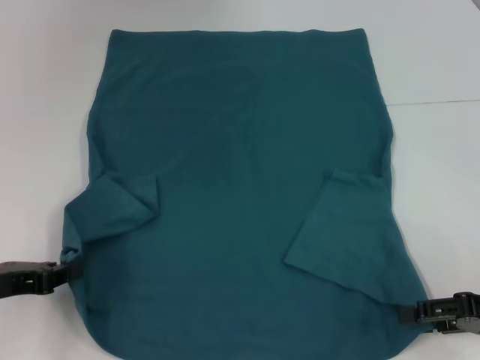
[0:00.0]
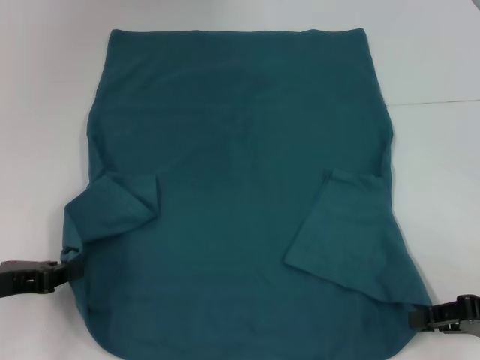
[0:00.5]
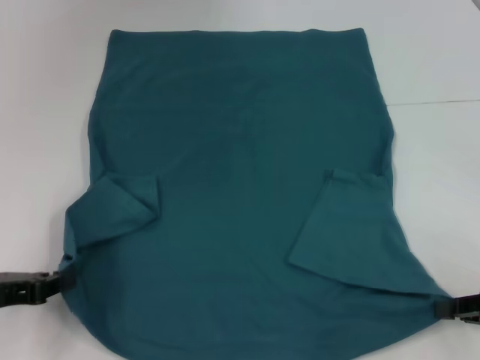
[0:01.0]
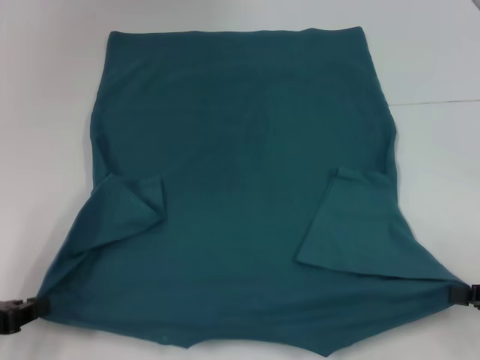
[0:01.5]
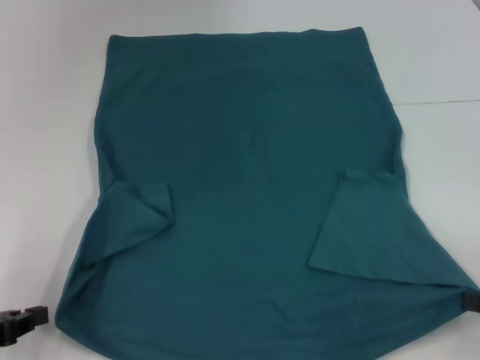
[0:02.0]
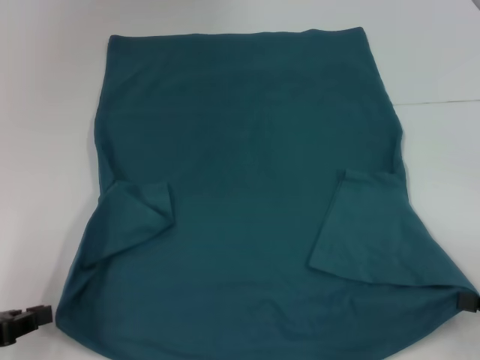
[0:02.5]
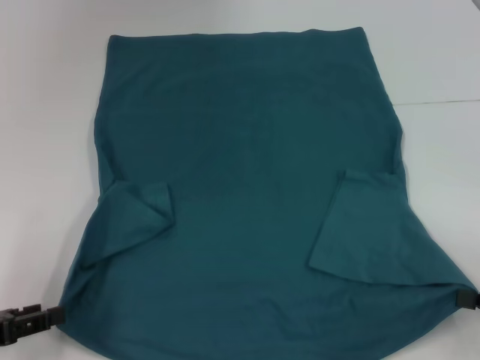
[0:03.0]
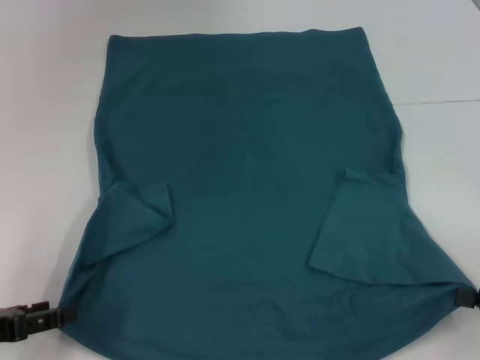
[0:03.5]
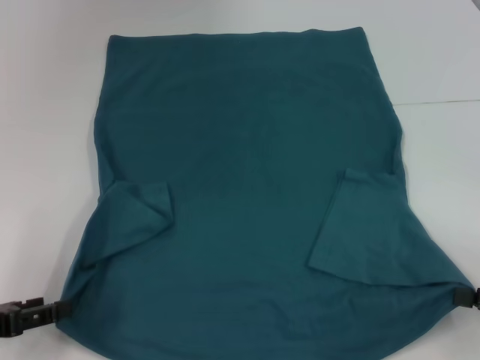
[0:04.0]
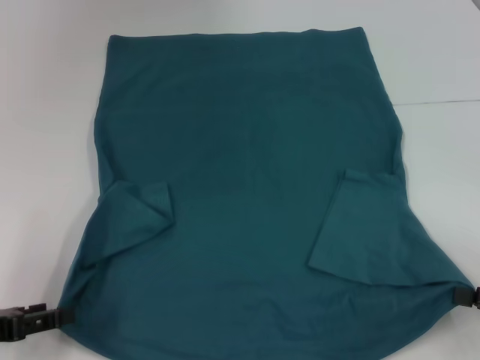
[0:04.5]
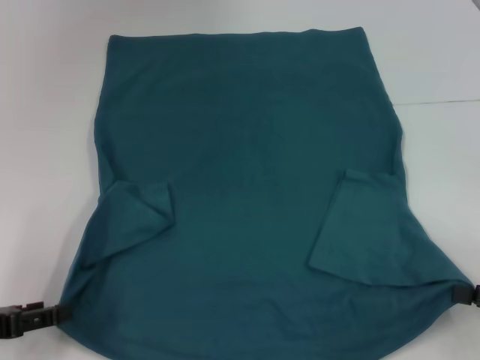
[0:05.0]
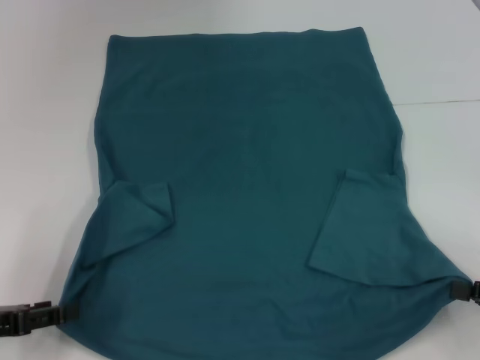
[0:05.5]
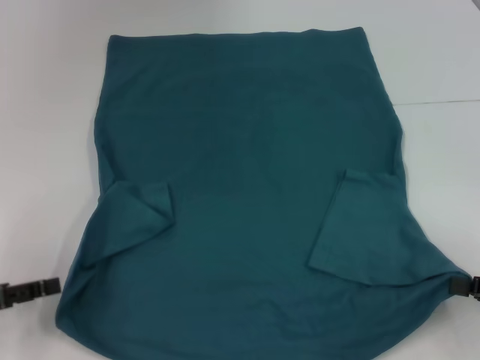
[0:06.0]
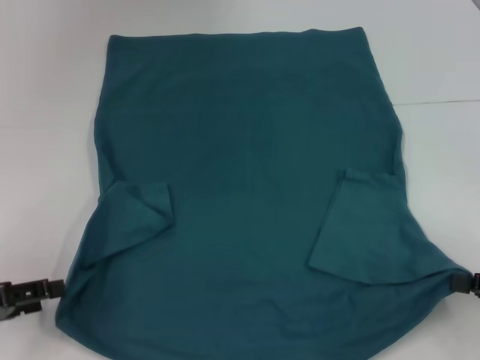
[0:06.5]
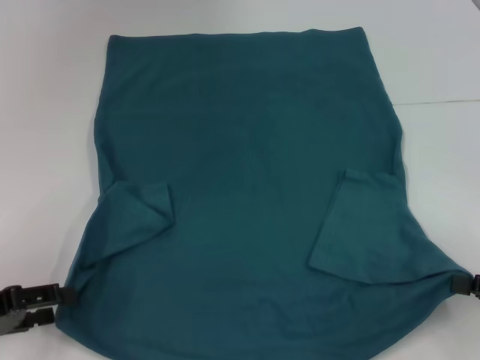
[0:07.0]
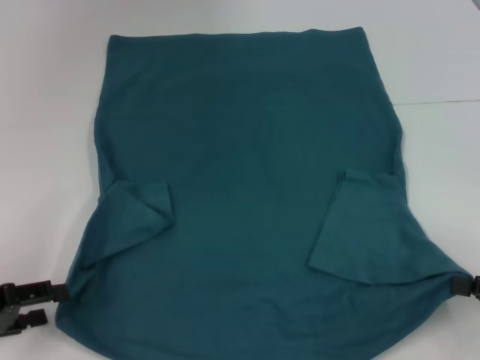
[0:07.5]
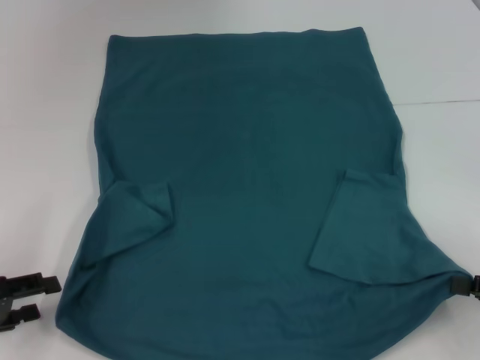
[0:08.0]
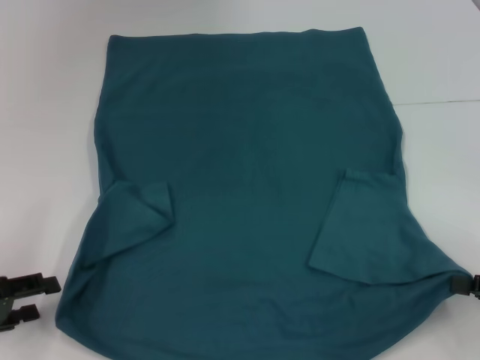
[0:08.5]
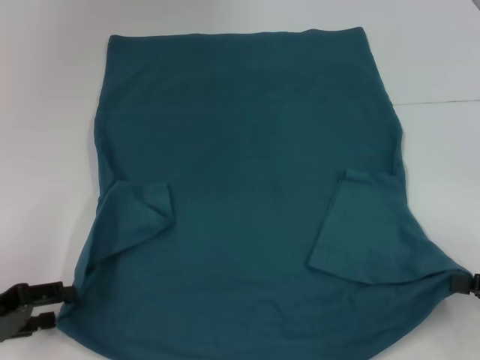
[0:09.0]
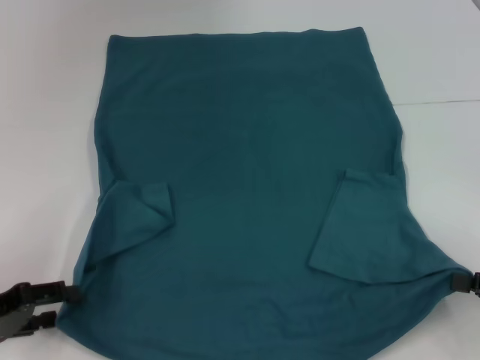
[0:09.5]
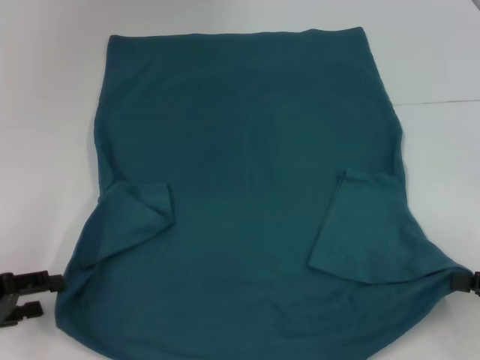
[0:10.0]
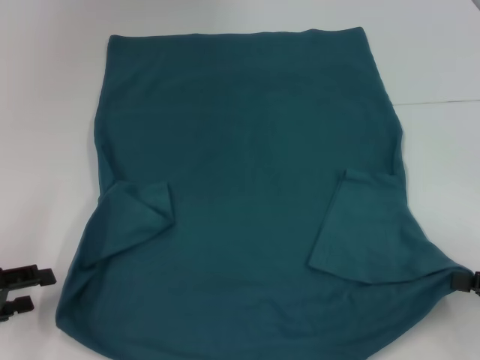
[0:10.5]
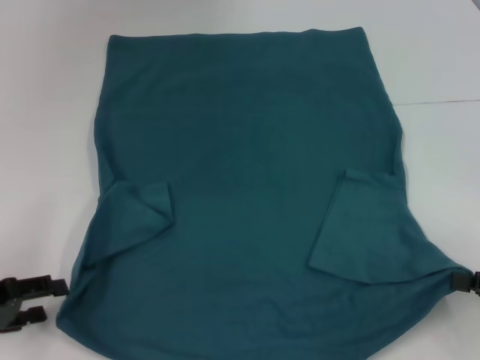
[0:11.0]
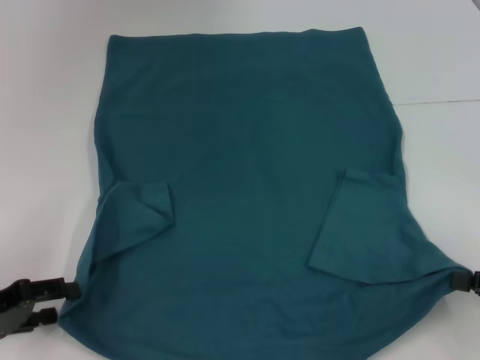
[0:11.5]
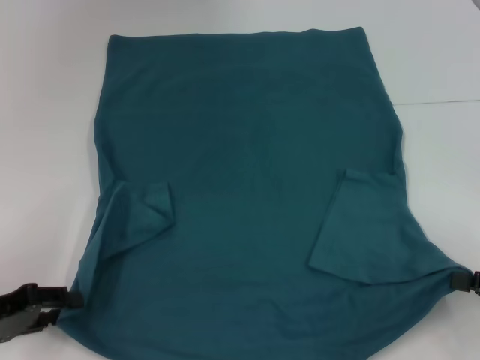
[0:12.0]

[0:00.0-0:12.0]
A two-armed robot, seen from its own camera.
0:00.0 to 0:02.0: The right gripper ends up some 5 cm from where it was, and closes its fingers. The left gripper shifts by roughly 5 cm.
0:02.0 to 0:04.0: The left gripper opens.
0:04.0 to 0:06.0: The grippers make only small movements.
0:08.0 to 0:12.0: The grippers stay close to where they were, moving slightly.

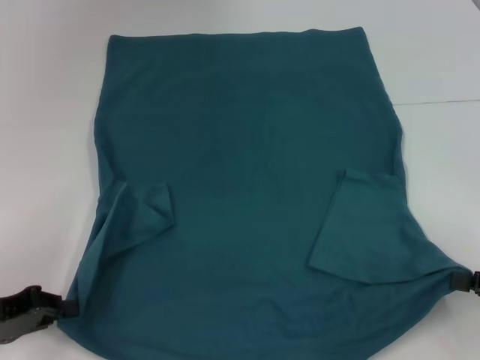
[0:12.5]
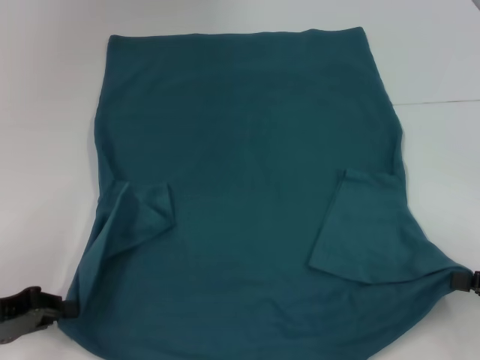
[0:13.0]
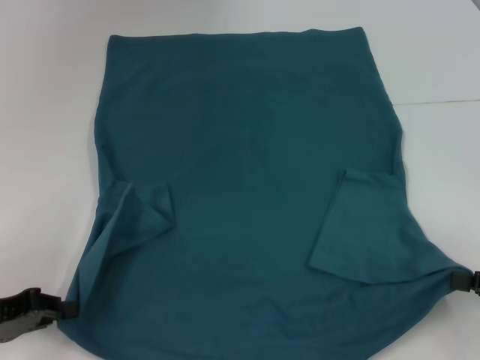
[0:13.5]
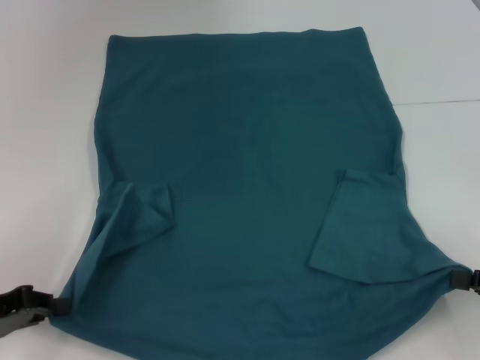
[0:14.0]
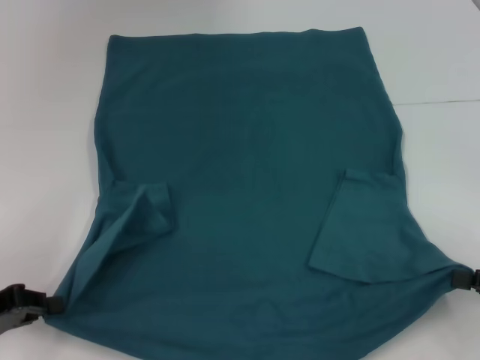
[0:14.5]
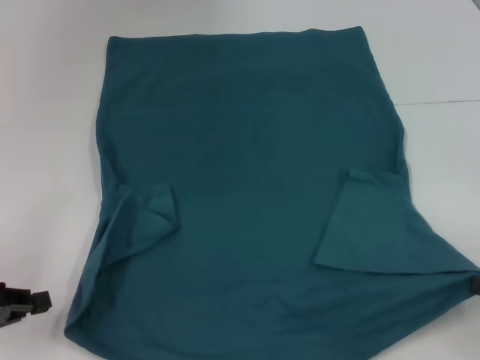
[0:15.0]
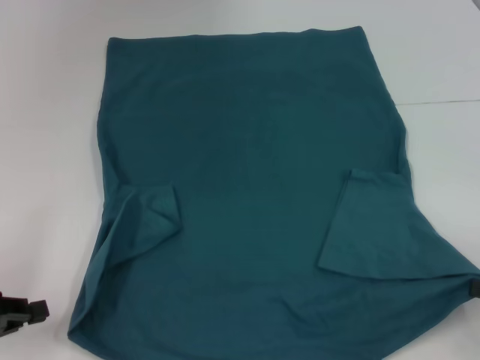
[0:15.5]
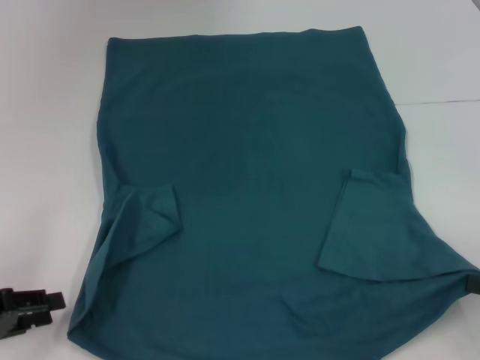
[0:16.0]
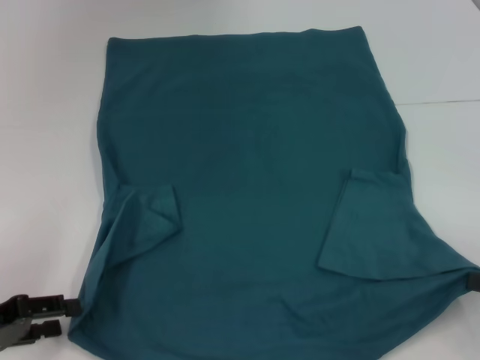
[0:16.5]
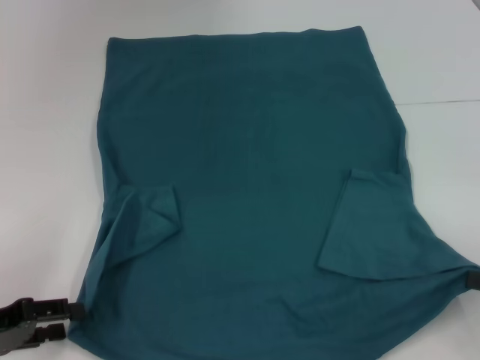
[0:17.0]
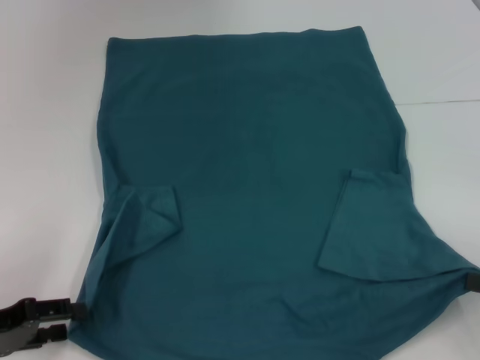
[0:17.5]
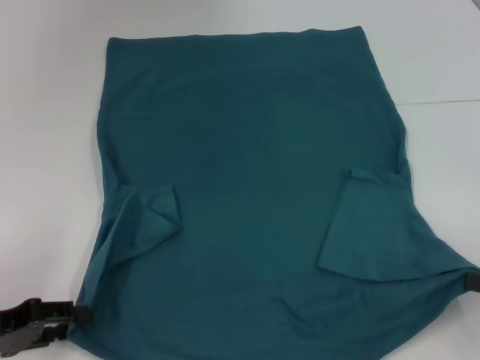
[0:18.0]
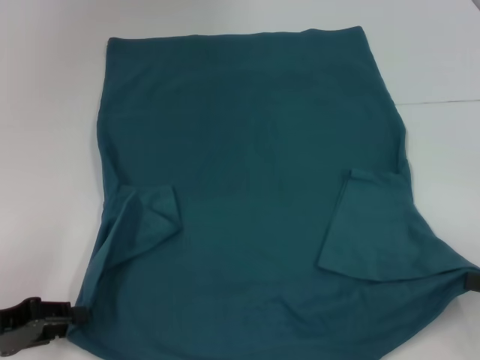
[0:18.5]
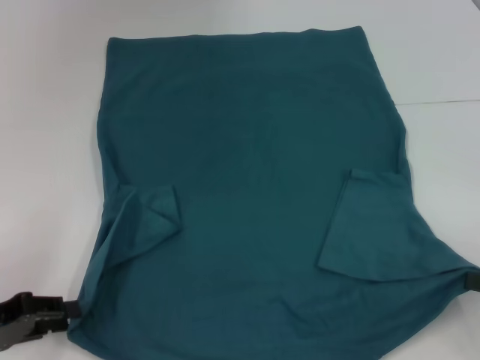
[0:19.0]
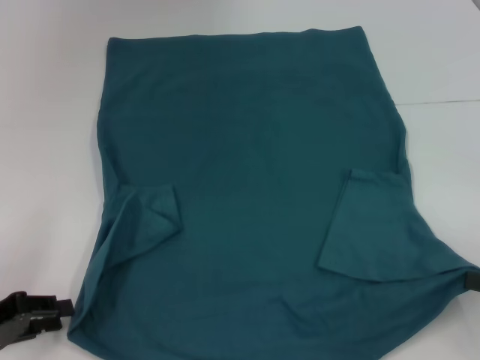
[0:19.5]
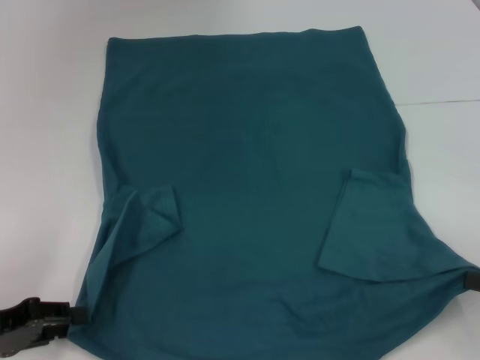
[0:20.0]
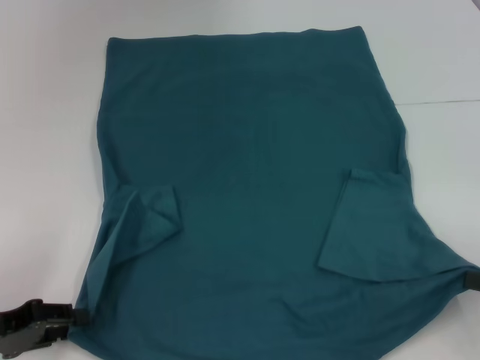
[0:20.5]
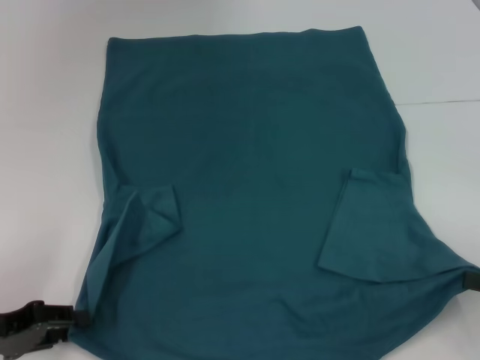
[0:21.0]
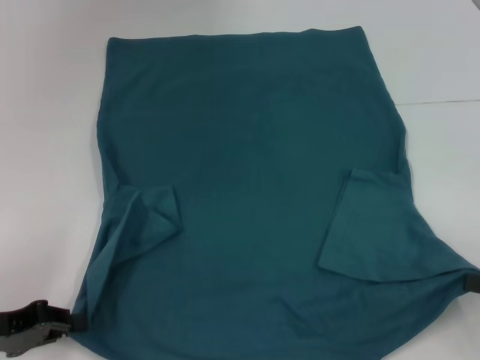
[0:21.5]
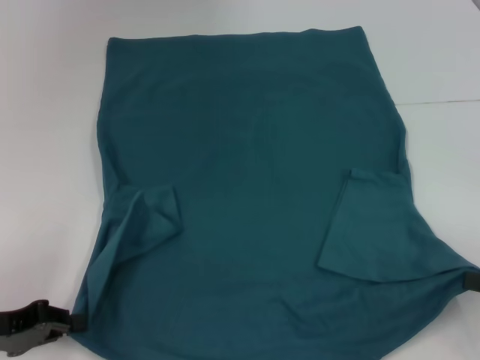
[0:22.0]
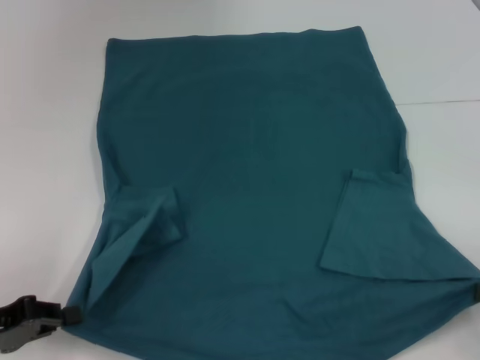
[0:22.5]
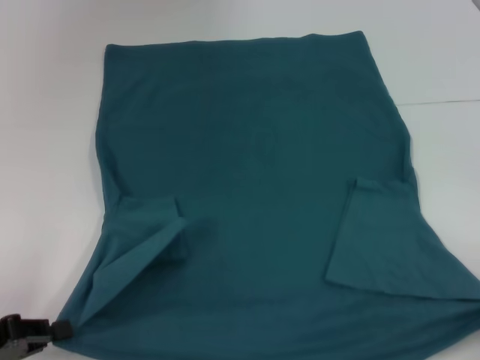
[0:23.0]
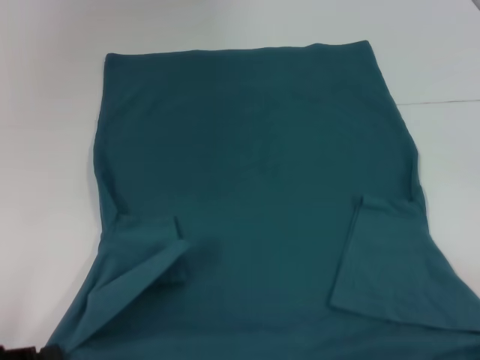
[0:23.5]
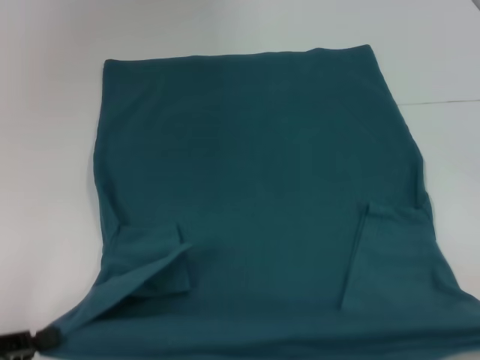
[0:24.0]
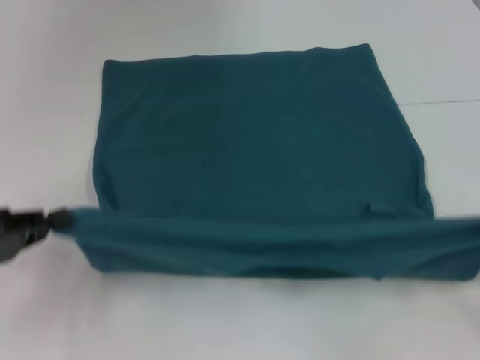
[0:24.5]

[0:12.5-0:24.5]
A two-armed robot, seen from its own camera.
Step, 0:12.5 to 0:21.5: Grab the bottom left corner with your left hand.
0:12.5 to 0:14.5: The grippers stay close to where they were, moving slightly.
0:14.5 to 0:16.5: The left gripper opens.
0:16.5 to 0:18.5: Both grippers stay put.
0:18.5 to 0:20.5: Both grippers stay about where they are.
0:20.5 to 0:22.5: The grippers make only small movements.
0:22.5 to 0:24.5: The right gripper shifts by roughly 5 cm, while the left gripper goes backward and returns, some 5 cm each way.

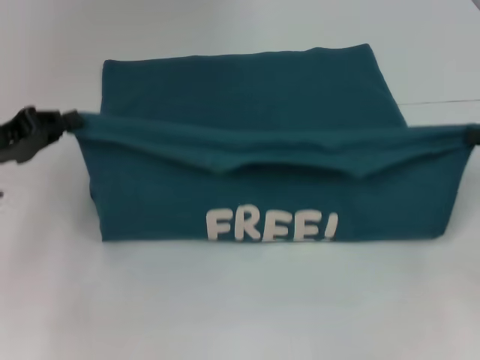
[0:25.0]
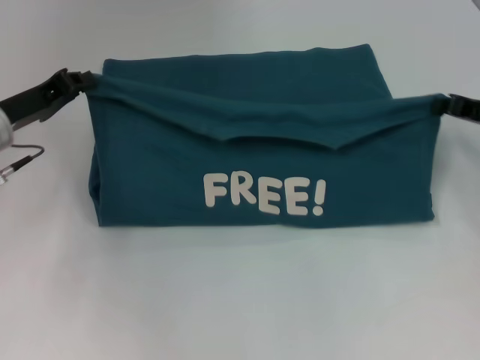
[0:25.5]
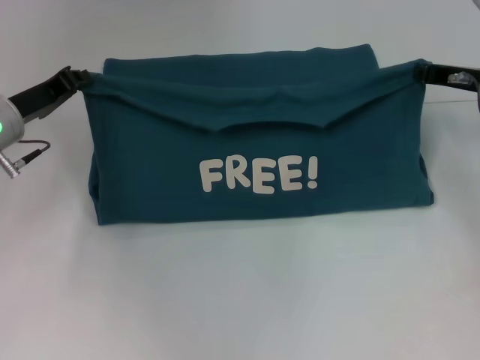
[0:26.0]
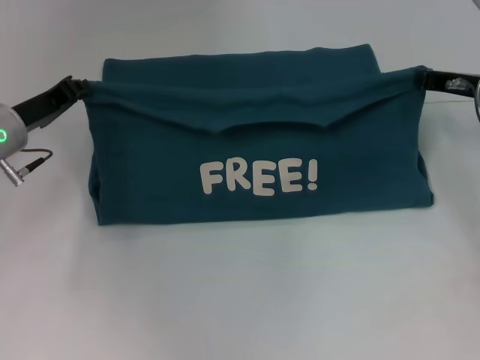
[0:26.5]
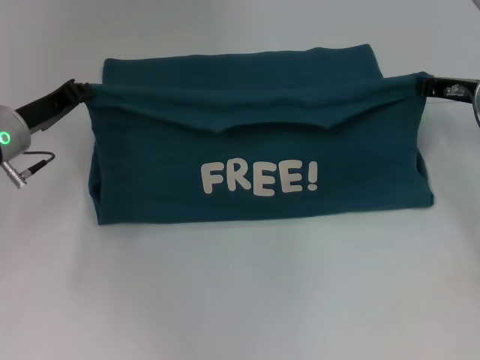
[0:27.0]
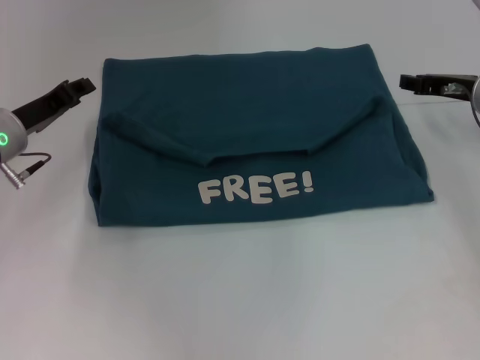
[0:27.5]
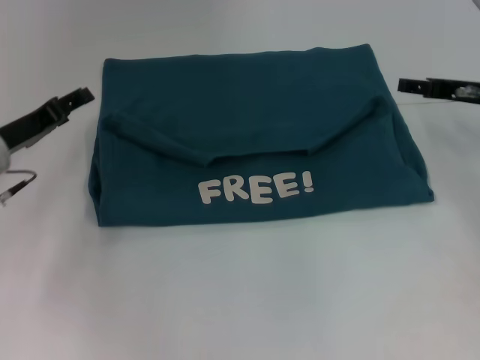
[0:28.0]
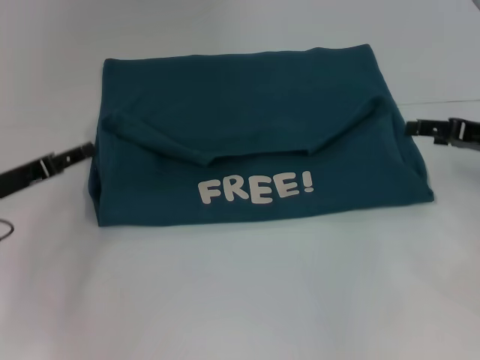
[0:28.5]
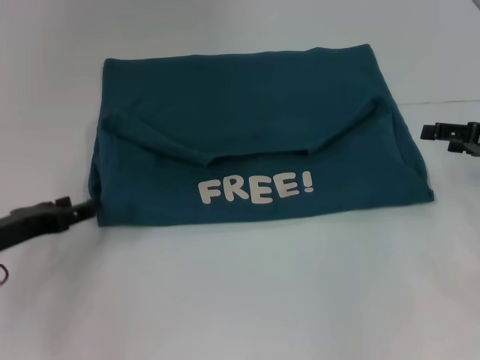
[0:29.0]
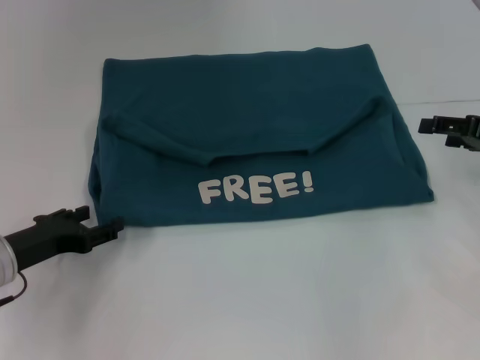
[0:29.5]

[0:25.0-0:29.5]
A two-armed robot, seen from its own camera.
Step, 0:25.0 to 0:27.0: Fold the clothes to the left.
Step, 0:25.0 to 0:27.0: Fold the clothes to the right.
0:25.0 to 0:27.0: The right gripper moves forward and to the left, roughly 15 cm, while the left gripper heads forward and to the right, covering roughly 10 cm.
0:27.0 to 0:29.5: The right gripper goes approximately 10 cm backward and to the right, and opens up. The left gripper heads backward and downward, covering some 10 cm, and opens up.
